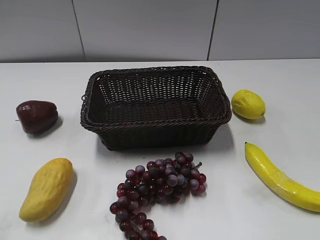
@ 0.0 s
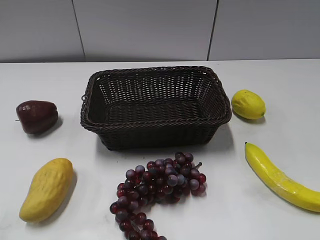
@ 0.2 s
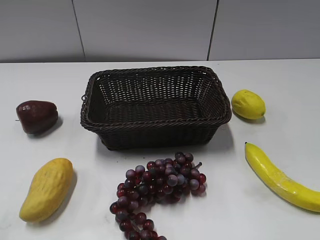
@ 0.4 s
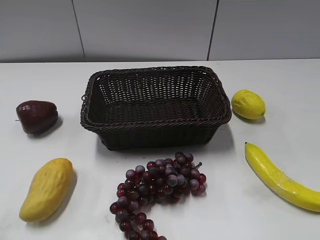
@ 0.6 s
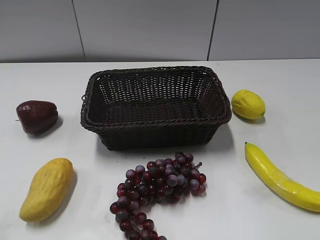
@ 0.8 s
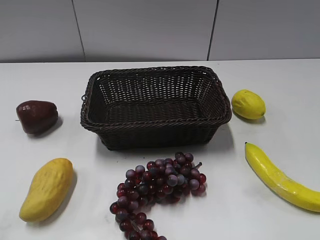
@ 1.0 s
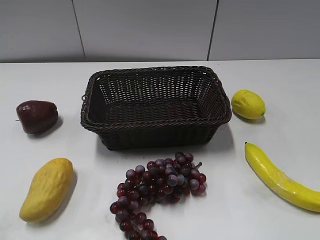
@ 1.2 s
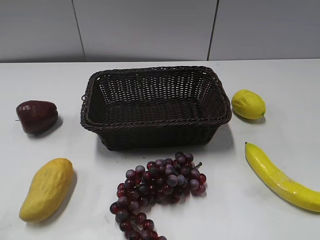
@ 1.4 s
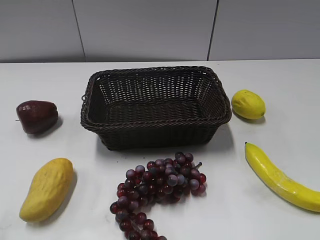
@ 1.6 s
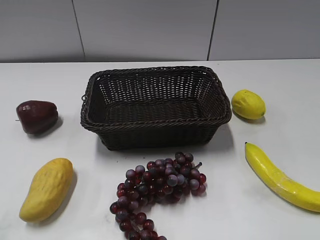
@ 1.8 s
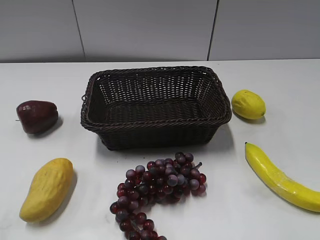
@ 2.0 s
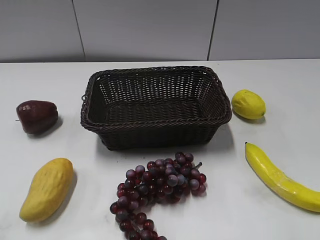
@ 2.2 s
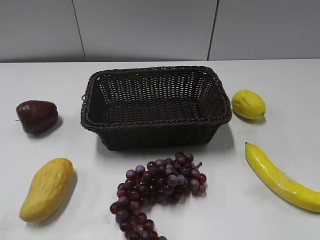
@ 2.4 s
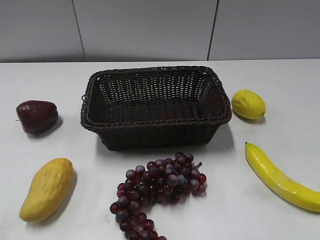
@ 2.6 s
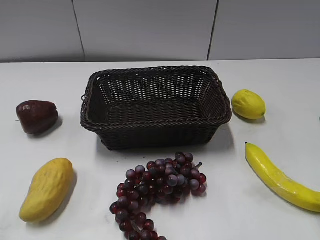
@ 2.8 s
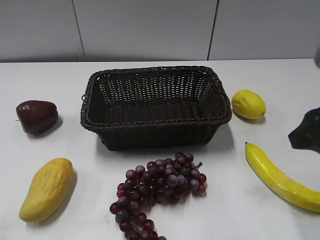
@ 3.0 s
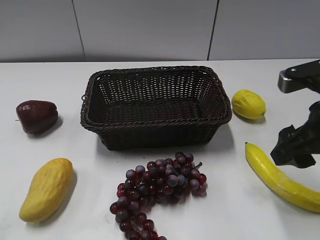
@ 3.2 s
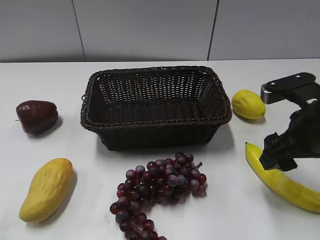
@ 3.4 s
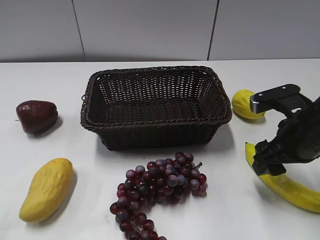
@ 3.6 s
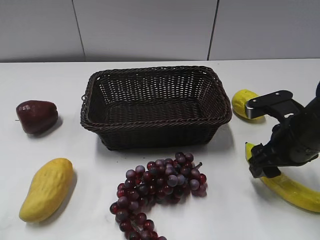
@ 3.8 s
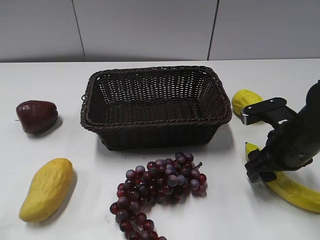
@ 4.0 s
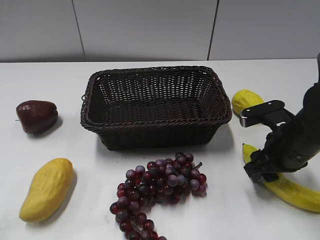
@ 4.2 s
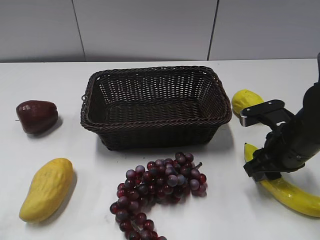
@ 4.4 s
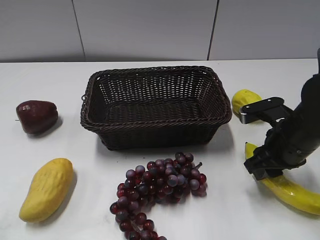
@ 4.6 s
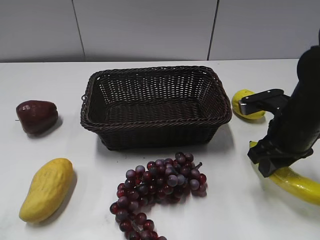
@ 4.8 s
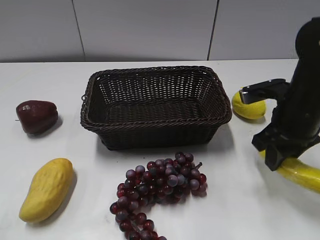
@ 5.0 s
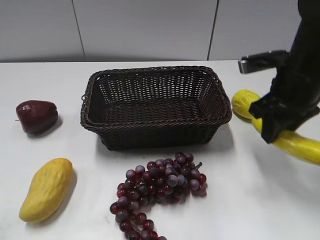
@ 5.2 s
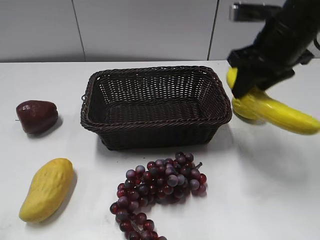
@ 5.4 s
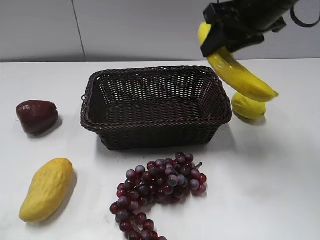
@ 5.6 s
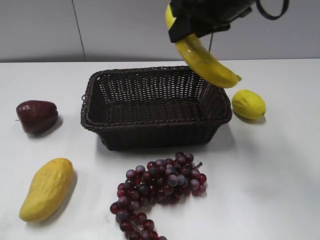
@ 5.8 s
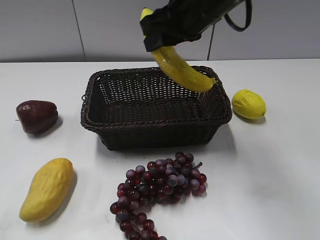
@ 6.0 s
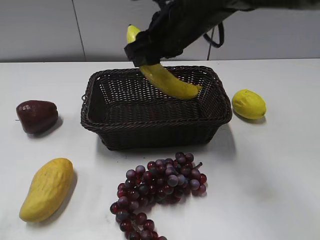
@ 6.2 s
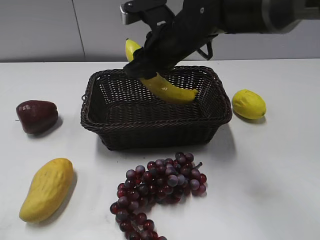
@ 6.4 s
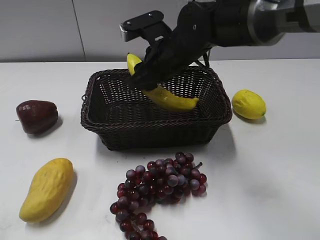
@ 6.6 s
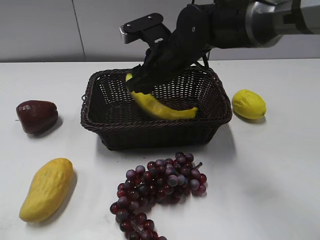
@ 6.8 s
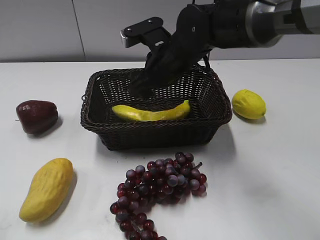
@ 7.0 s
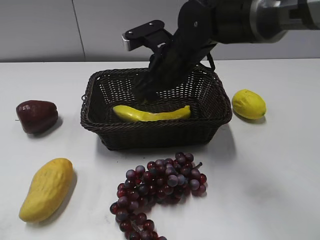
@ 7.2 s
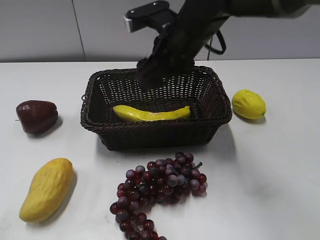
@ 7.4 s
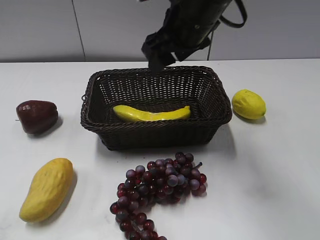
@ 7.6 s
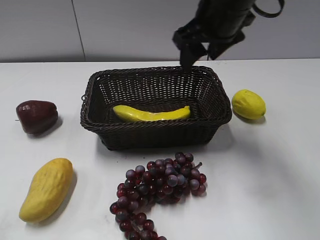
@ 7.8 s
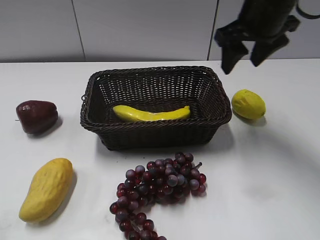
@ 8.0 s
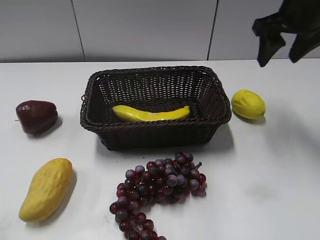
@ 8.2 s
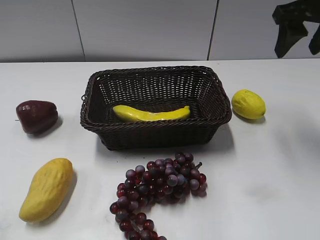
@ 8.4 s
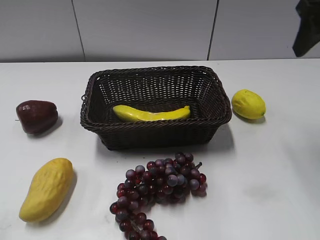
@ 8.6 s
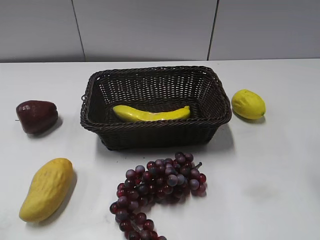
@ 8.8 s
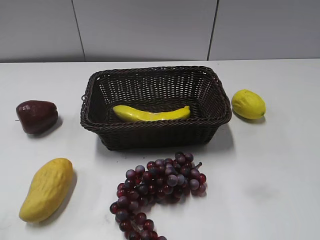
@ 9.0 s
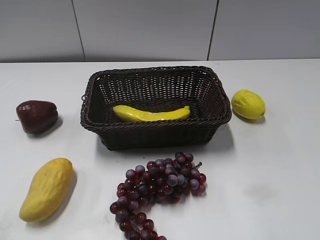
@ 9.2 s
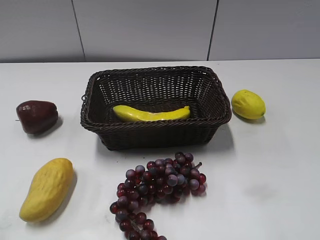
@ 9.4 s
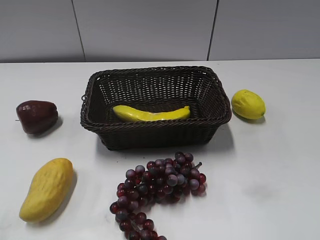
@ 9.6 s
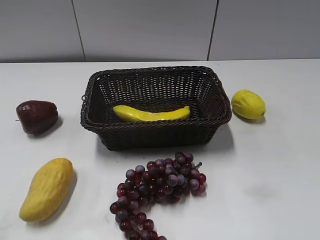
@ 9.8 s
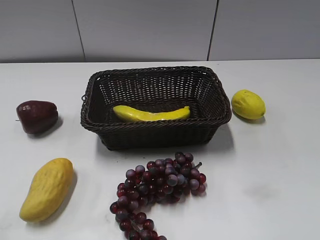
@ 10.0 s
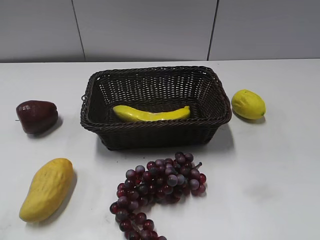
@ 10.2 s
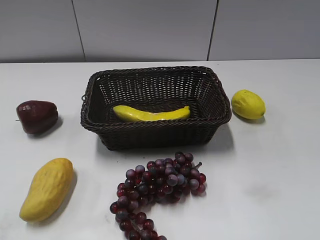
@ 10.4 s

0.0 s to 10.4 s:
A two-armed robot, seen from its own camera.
Step, 3.0 to 4.6 s: Grasp the banana with right gripper.
Step, 4.8 to 7.2 s: Place the banana in the basket with right gripper.
1.4 to 3.0 s: The right gripper travels forward by roughly 20 cm.
3.0 to 4.4 s: The right gripper moves downward and forward, roughly 15 cm, and closes.
4.4 to 6.0 s: The right gripper moves upward, to the left and forward, approximately 25 cm.
6.0 to 7.4 s: The right gripper travels downward by some 10 cm, and opens its fingers.
7.4 to 9.0 s: The right gripper moves to the right, backward and upward, some 35 cm.

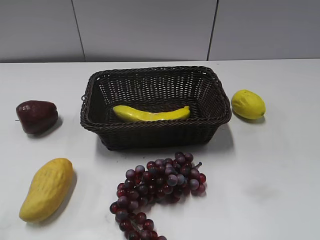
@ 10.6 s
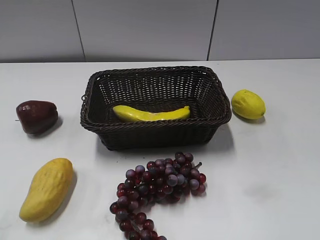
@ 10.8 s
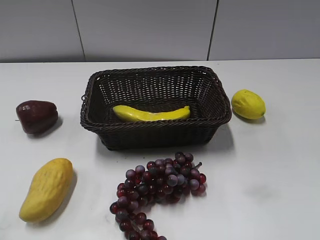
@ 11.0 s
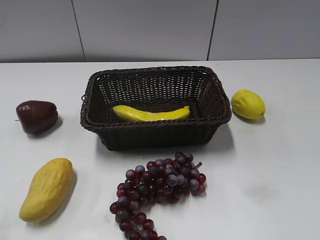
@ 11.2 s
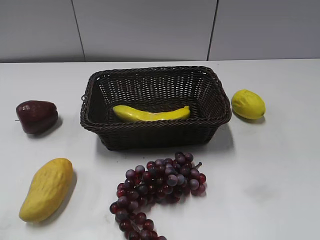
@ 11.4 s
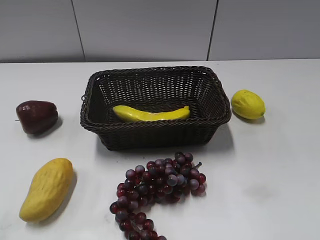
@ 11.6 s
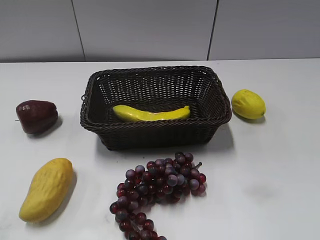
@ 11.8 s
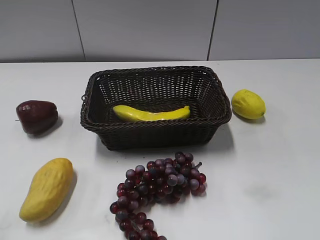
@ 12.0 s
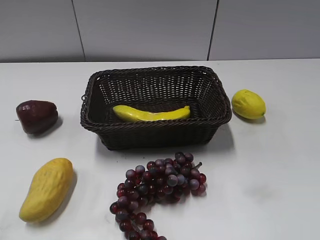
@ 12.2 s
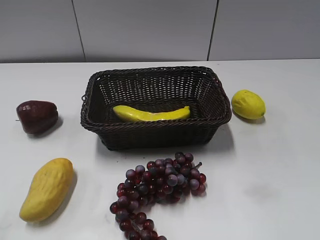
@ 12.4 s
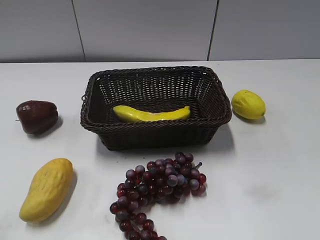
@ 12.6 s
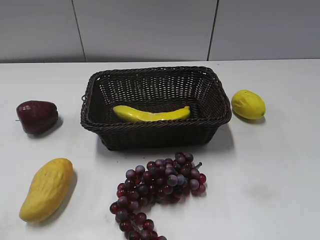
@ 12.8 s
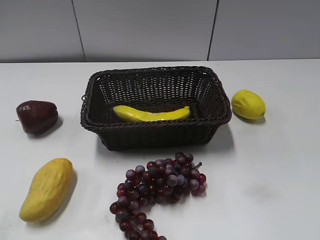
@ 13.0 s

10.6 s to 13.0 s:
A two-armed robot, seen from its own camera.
11.8 to 13.0 s: The two grippers keep their place.

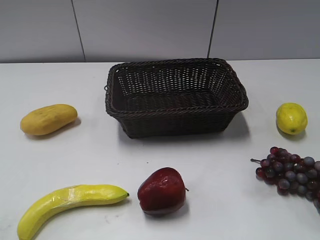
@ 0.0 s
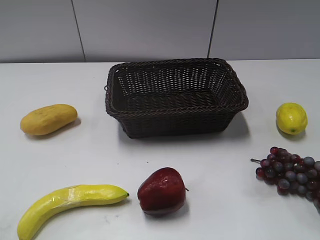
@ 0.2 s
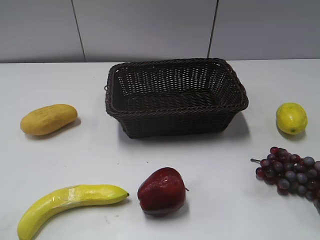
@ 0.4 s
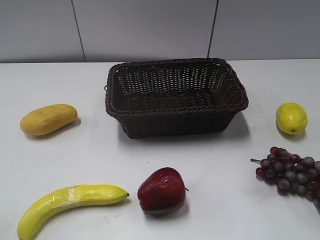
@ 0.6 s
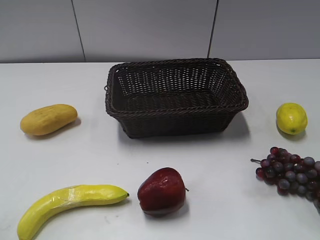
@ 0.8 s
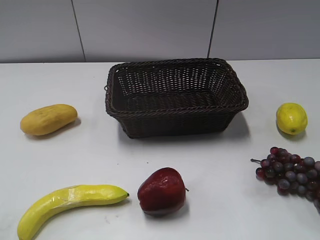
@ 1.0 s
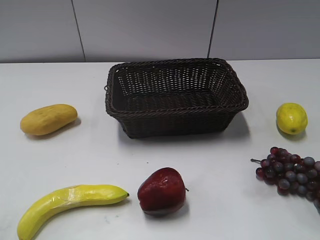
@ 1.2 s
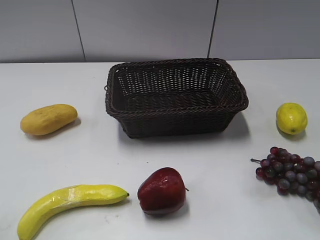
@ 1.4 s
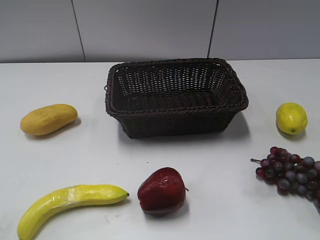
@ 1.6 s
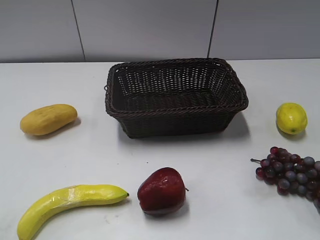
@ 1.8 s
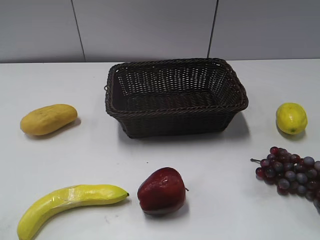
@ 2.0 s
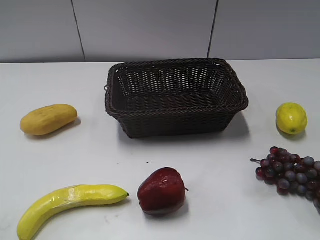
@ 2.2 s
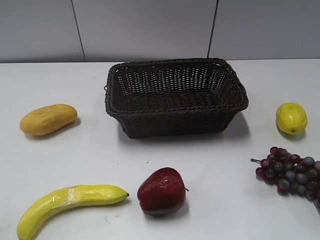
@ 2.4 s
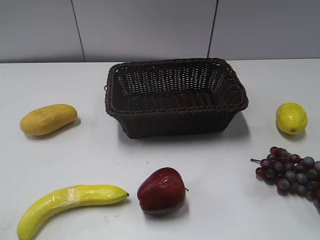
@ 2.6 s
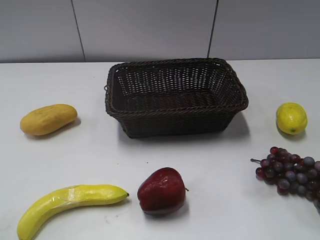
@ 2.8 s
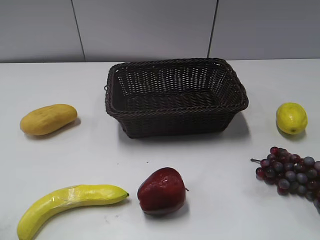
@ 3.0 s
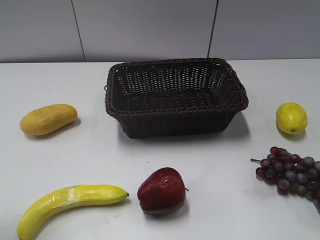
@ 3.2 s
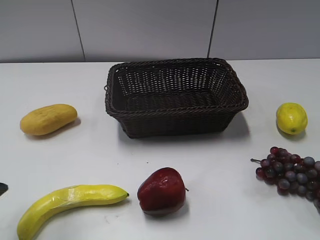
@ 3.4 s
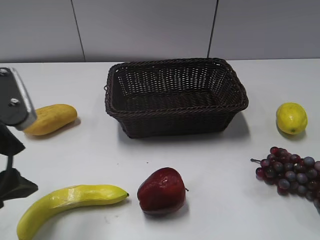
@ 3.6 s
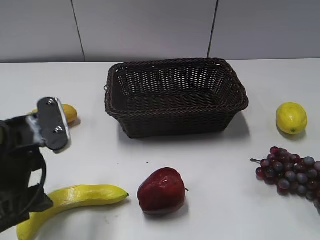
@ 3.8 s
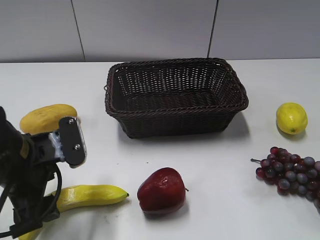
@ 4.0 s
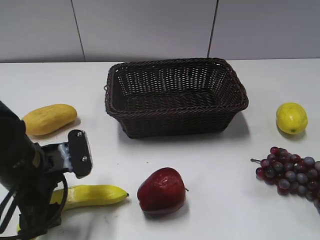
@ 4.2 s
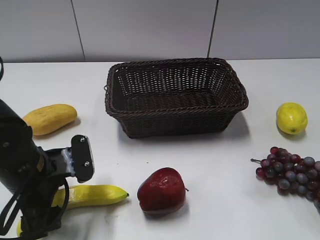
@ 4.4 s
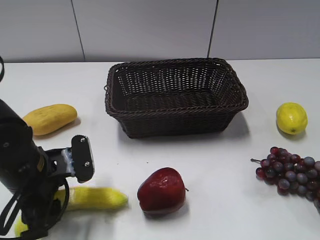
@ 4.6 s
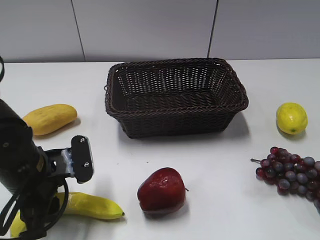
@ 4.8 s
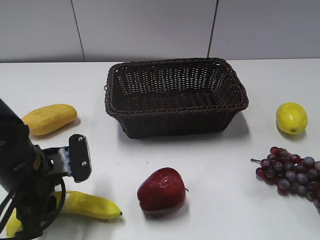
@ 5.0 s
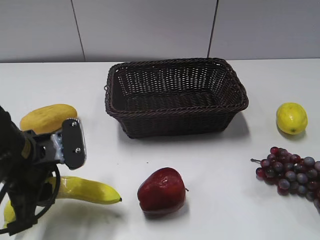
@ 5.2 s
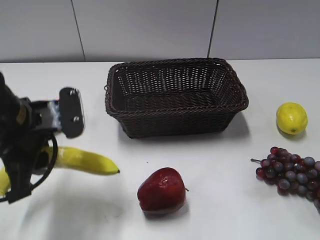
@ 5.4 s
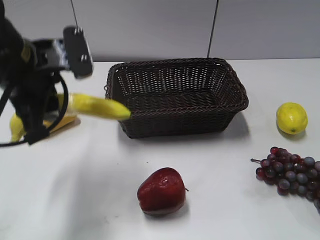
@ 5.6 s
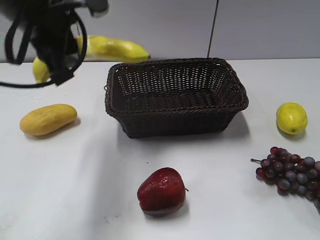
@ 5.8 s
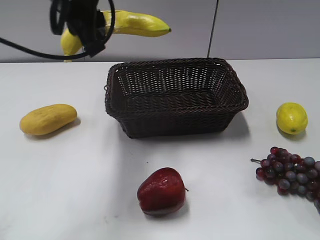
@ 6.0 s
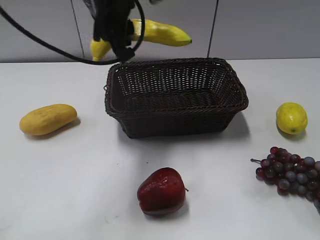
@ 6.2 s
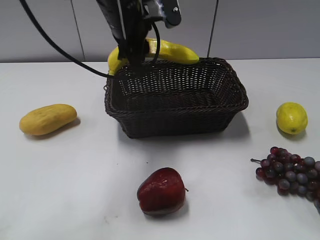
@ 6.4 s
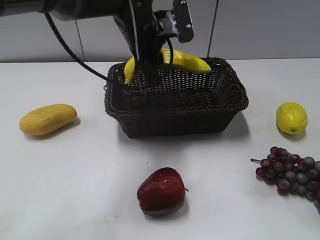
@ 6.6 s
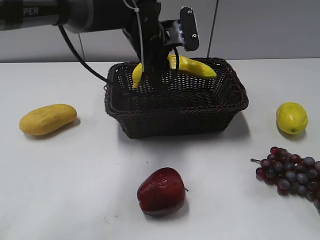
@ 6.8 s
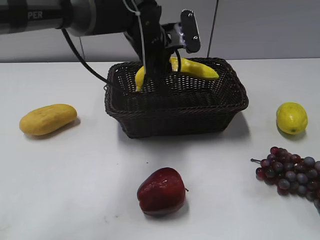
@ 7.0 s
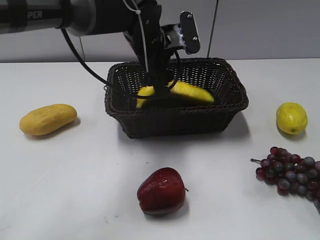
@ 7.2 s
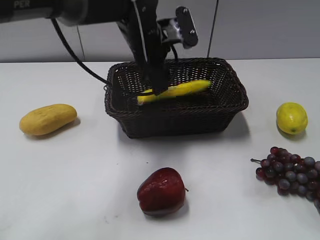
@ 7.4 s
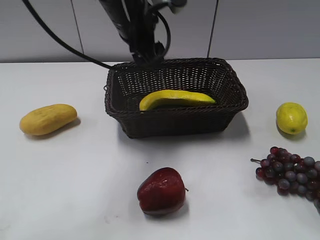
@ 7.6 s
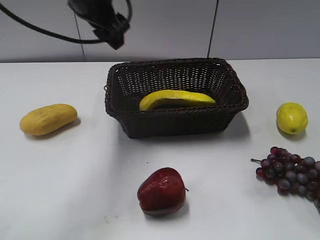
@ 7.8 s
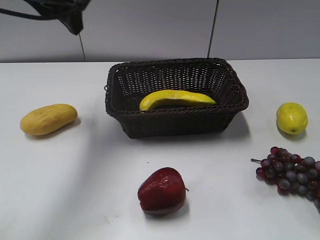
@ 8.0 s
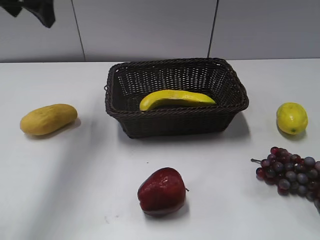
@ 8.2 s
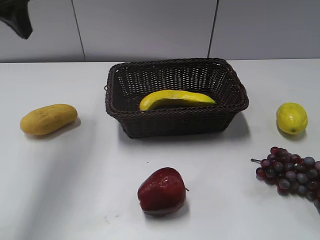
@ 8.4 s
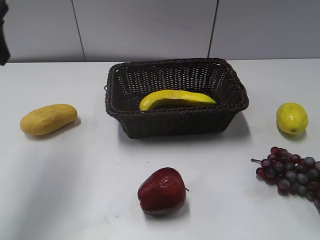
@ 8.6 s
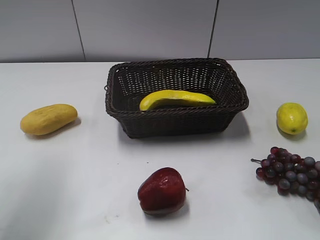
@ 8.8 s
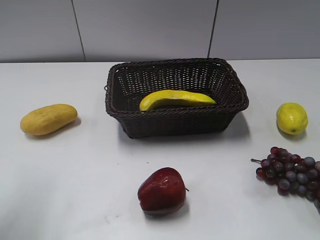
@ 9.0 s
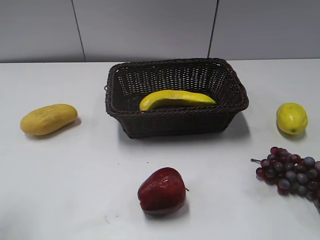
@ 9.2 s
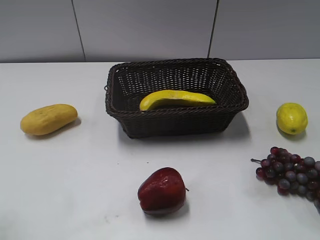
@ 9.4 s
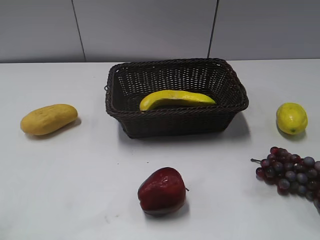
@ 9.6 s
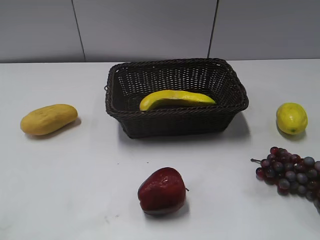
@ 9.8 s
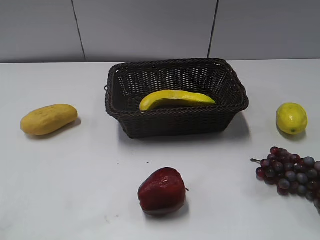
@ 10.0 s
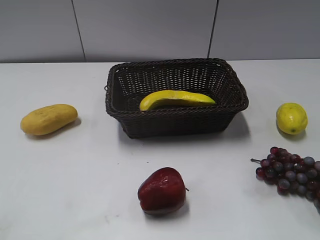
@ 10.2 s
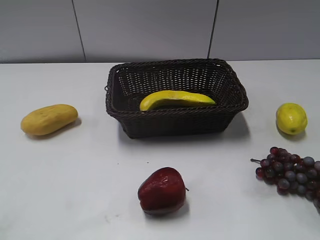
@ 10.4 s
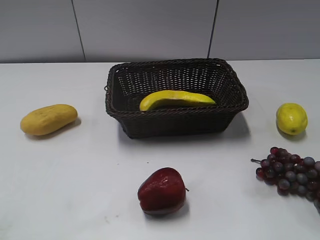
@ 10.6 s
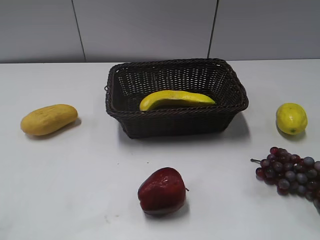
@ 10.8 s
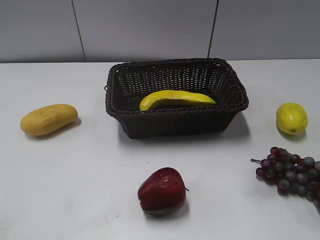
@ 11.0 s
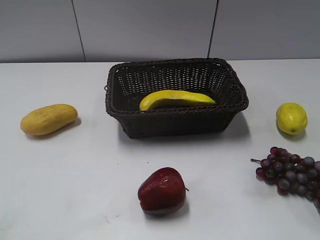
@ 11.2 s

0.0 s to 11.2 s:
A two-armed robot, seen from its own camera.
Step, 3.4 to 4.8 s: Grasp the banana with left gripper.
Step, 5.0 to 7.6 s: Place the banana in the basket with left gripper.
3.2 to 4.8 s: The left gripper goes roughly 20 cm downward, forward and to the right, and closes its fingers.
4.8 to 6.4 s: The left gripper is displaced forward, upward and to the right by about 25 cm.
6.4 to 8.0 s: The left gripper shifts some 15 cm to the left and upward, and opens up.
8.0 to 9.6 s: The left gripper is displaced backward and to the left by some 35 cm.
